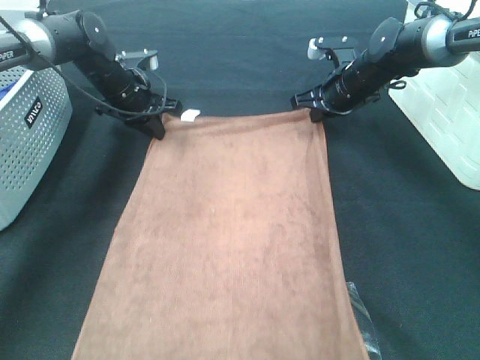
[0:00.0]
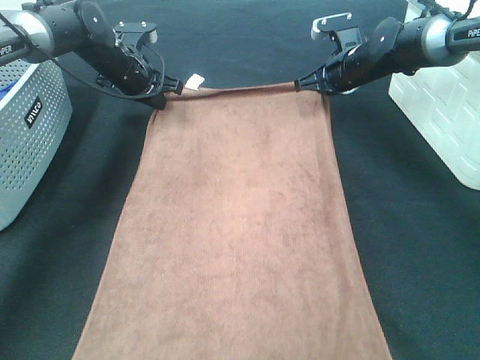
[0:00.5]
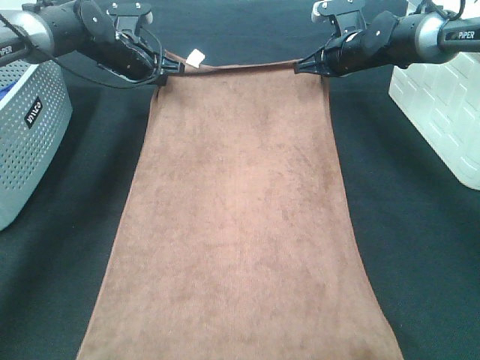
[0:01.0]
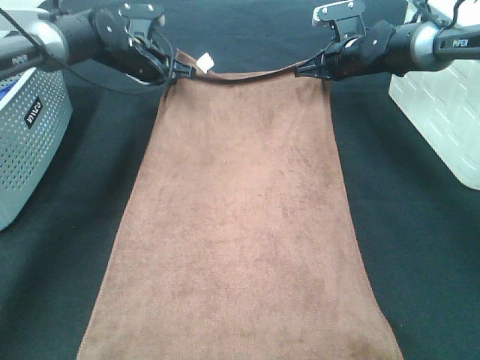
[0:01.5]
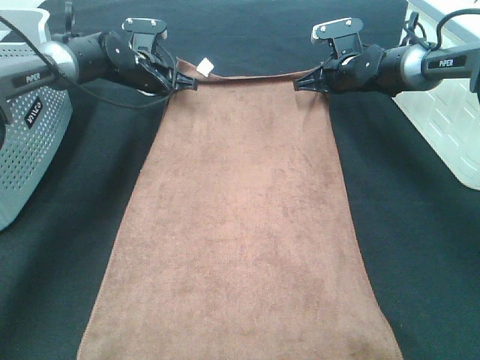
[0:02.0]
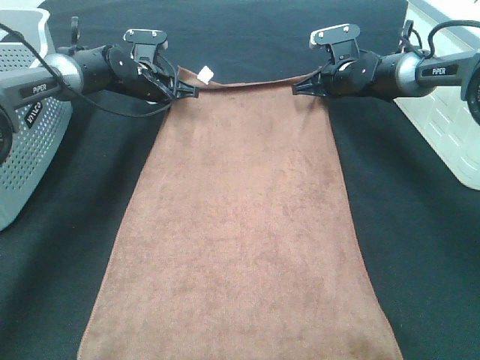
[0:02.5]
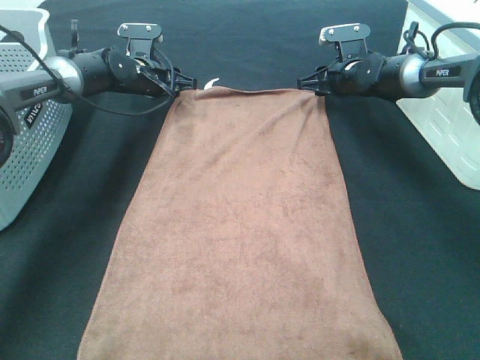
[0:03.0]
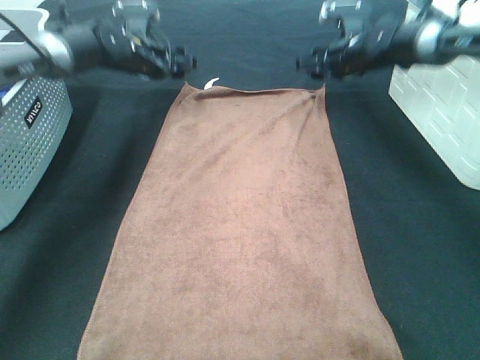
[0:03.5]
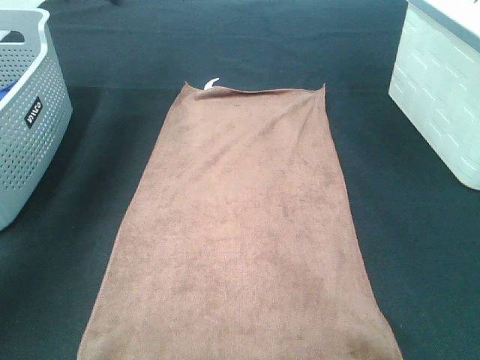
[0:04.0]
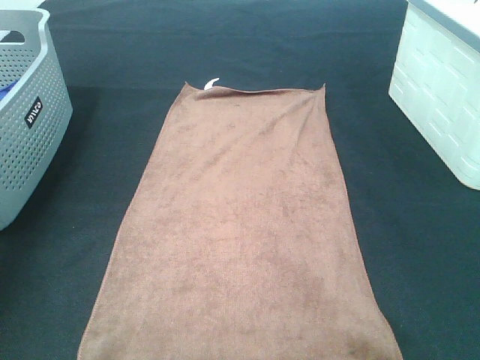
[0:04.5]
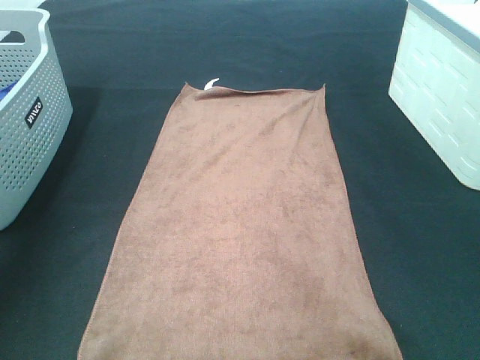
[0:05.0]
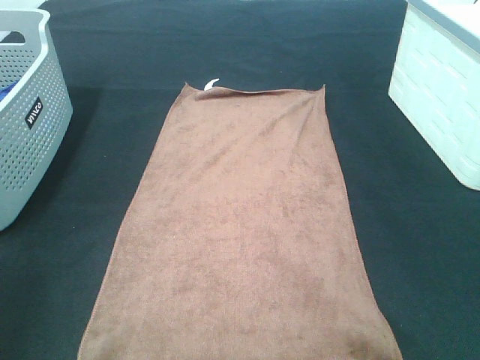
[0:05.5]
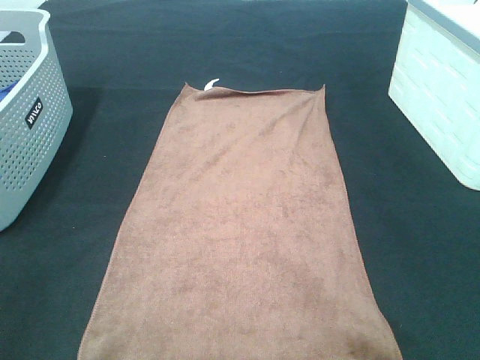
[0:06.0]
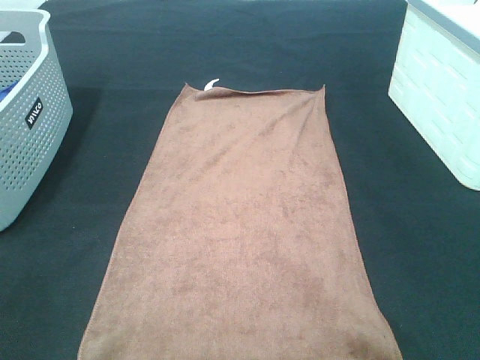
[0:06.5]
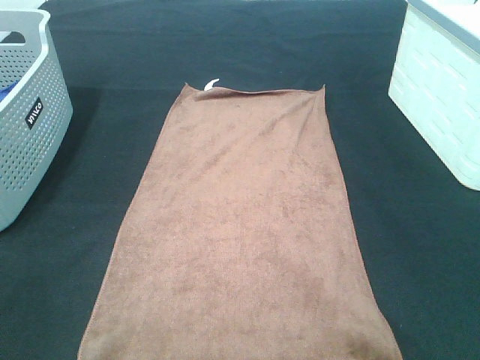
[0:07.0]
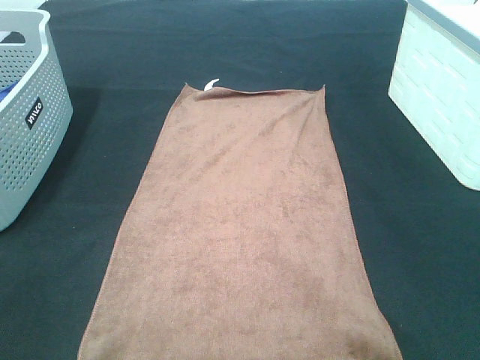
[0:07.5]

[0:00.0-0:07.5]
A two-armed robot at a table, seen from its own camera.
Task of the whole recording: Remove the towel and place it.
0:02.0 to 0:04.0: The right gripper travels upward and backward by some 30 cm, and opens its fingers. The left gripper goes about 25 cm upward, and opens its fingers.
0:04.0 to 0:05.5: Both grippers travel together backward, some 40 cm.

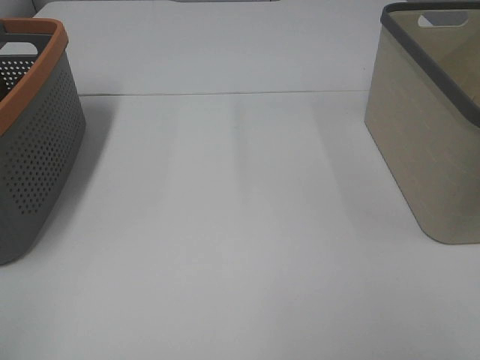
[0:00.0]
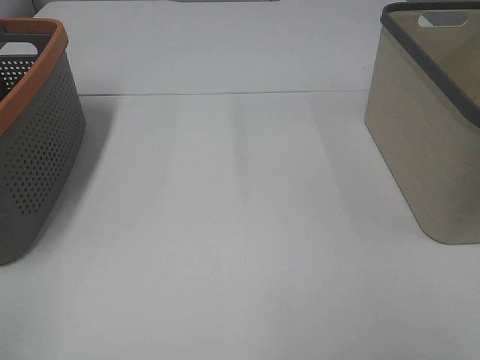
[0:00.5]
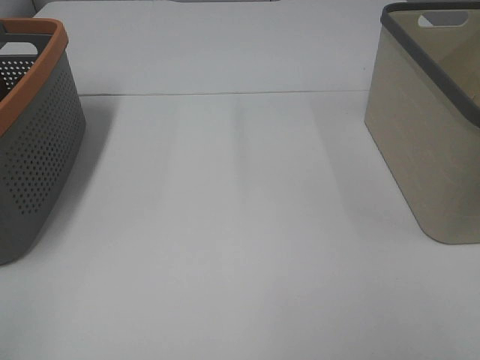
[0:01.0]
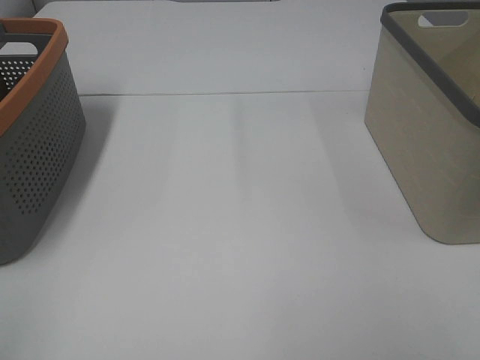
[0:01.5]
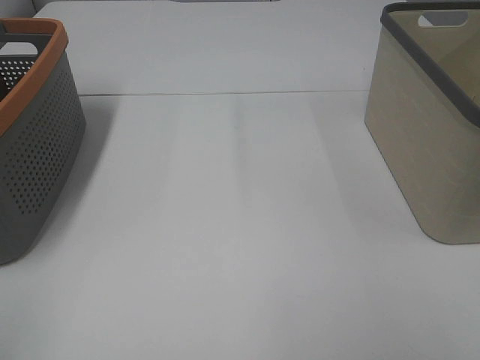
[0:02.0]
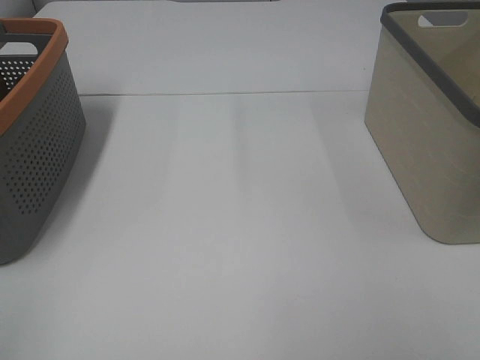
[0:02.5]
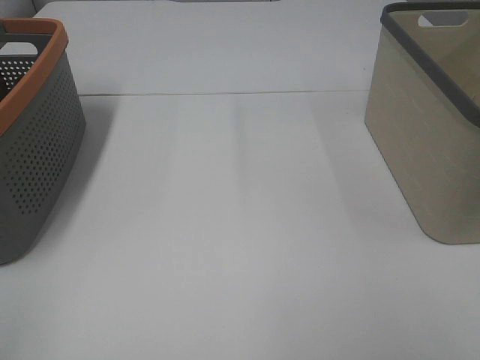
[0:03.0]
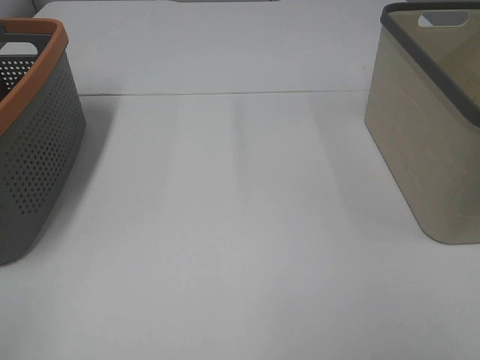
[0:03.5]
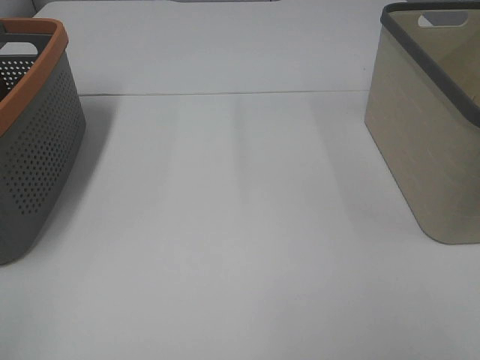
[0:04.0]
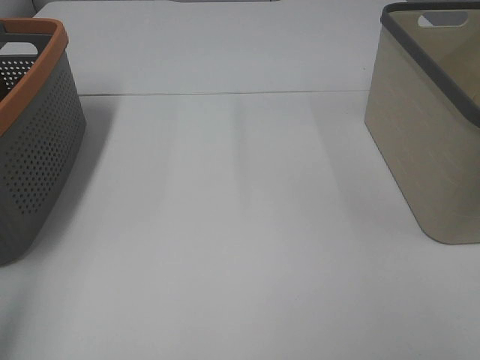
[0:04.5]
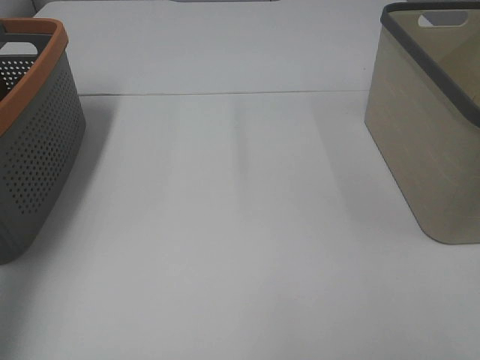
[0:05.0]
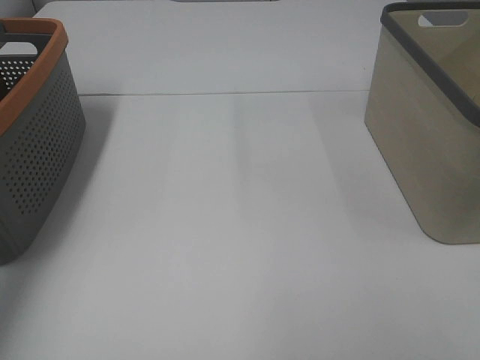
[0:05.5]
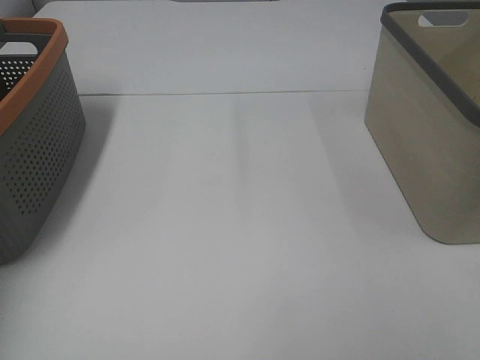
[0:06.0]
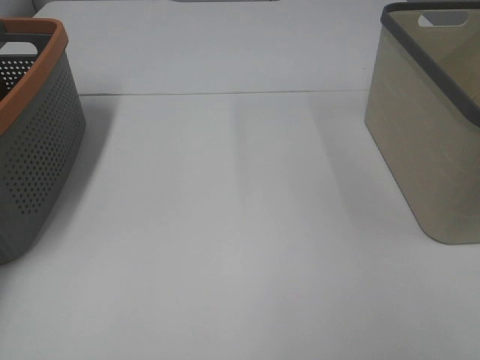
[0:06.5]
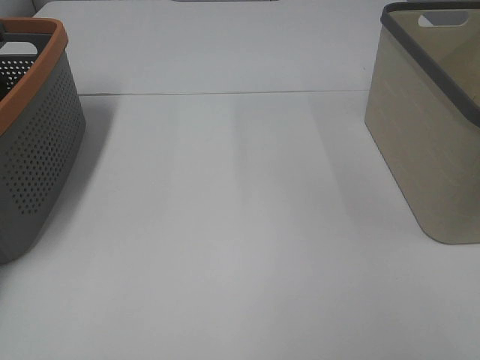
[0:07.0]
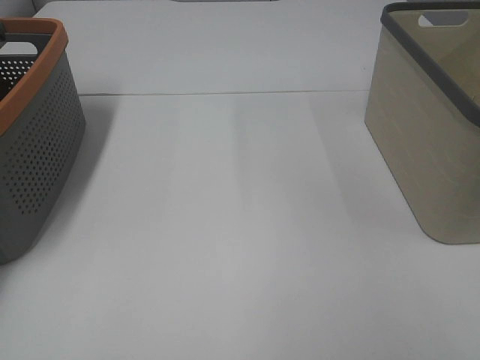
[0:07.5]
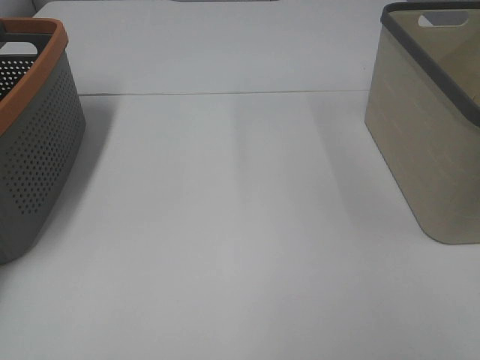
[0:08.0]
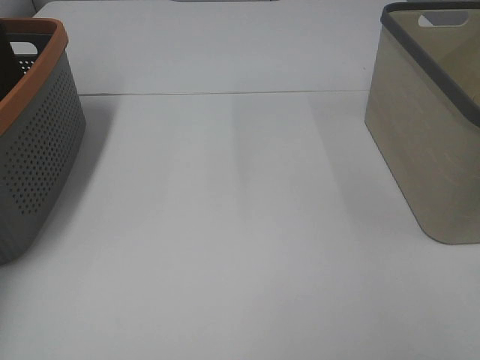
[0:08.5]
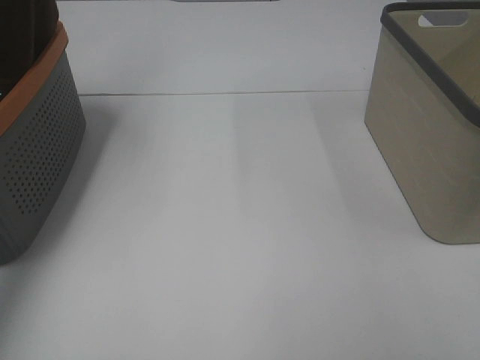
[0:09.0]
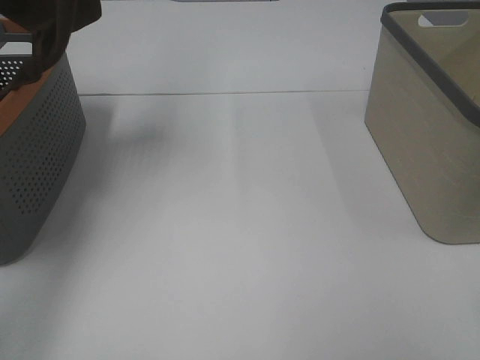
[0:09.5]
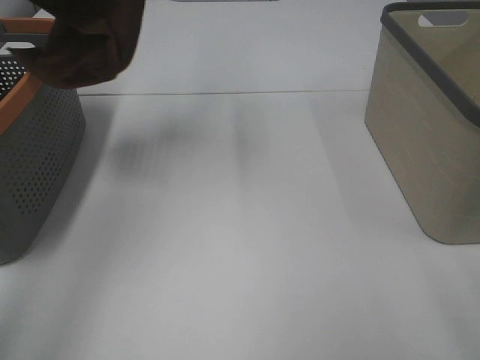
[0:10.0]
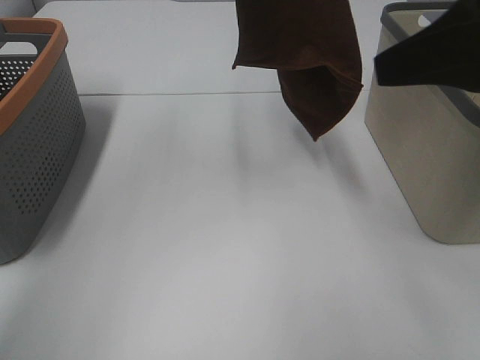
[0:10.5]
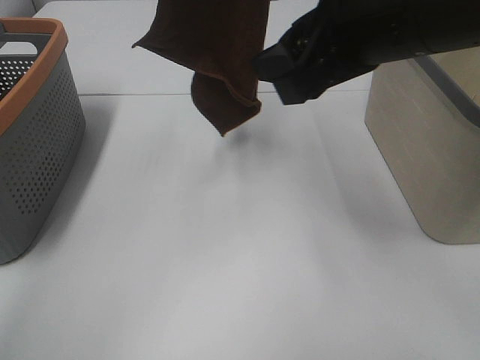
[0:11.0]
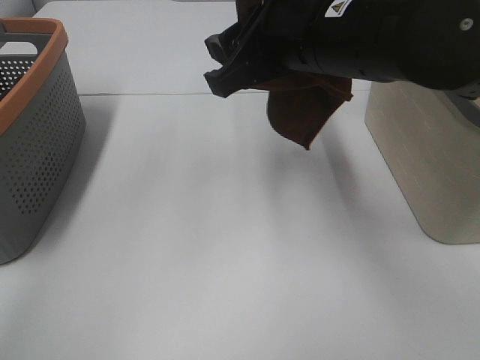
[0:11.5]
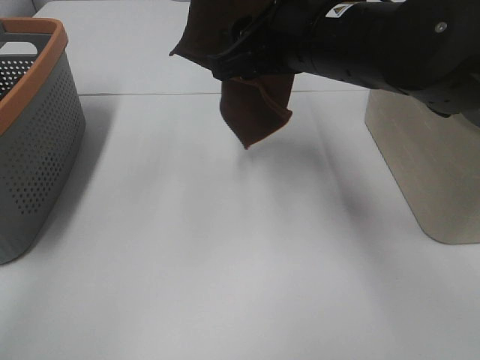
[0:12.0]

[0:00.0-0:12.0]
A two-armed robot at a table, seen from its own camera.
Task of the whole recording: Remove the towel and place it.
0:00.0 to 0:04.0: Both grippers stay put.
0:08.0 to 0:10.0: The left gripper heads to the right, upward and backward, covering approximately 35 cm. The right gripper is displaced forward by about 10 cm.
0:10.0 to 0:12.0: The right gripper is displaced forward and to the left by roughly 25 cm. The left gripper heads to the right, covering roughly 10 cm.

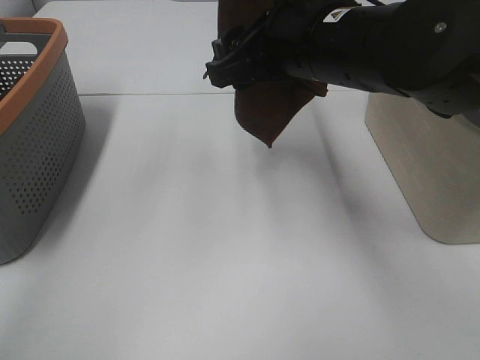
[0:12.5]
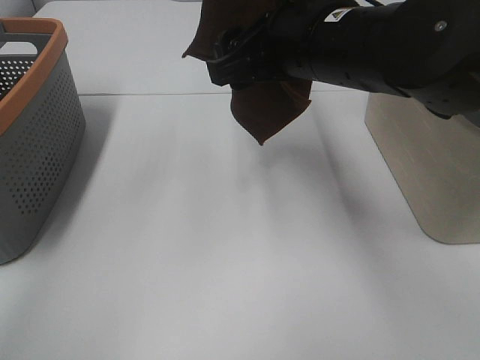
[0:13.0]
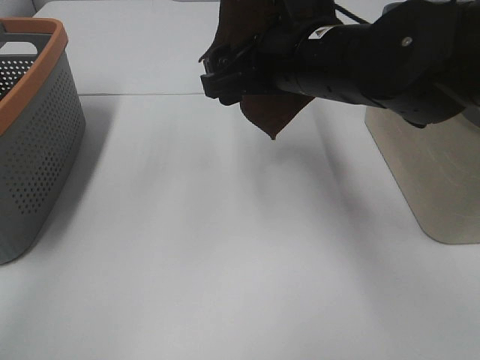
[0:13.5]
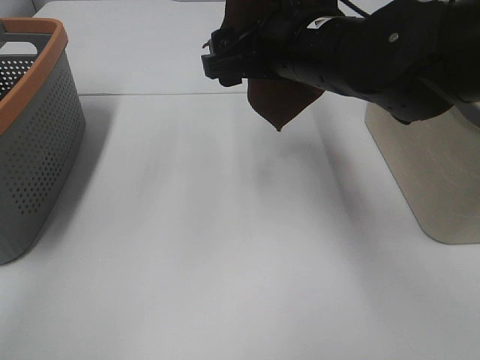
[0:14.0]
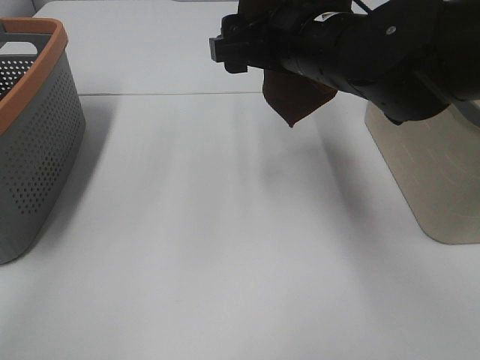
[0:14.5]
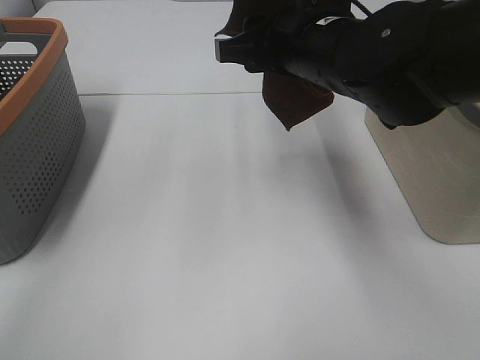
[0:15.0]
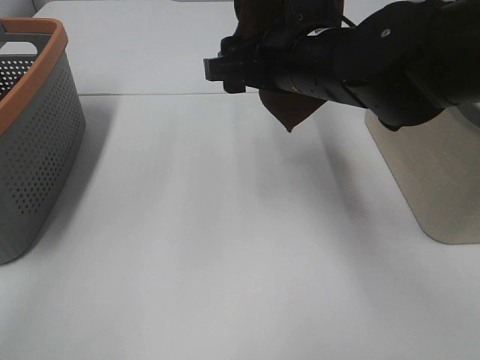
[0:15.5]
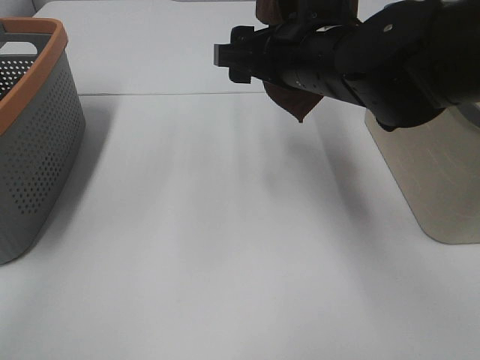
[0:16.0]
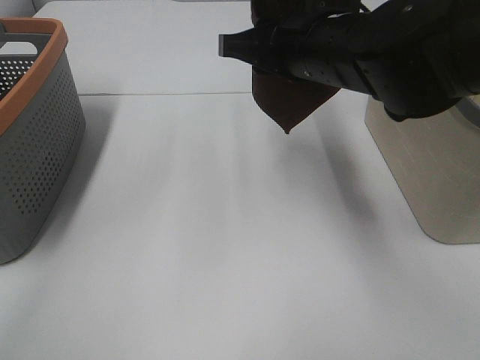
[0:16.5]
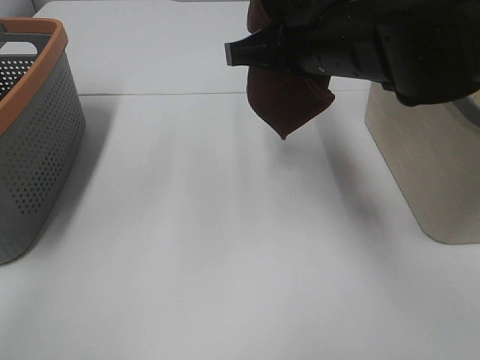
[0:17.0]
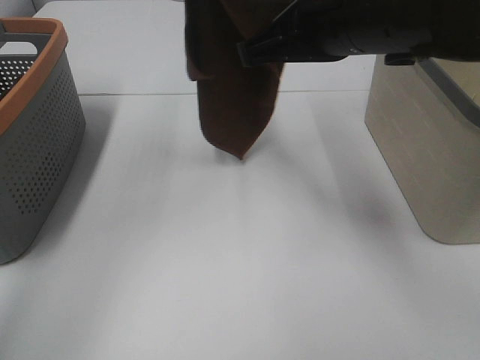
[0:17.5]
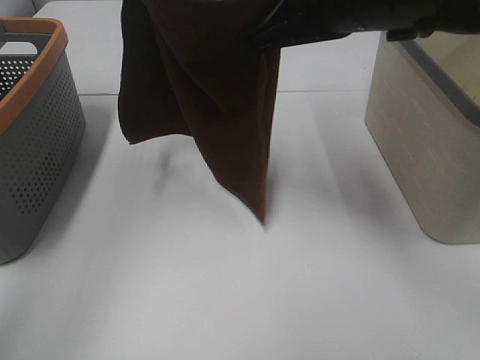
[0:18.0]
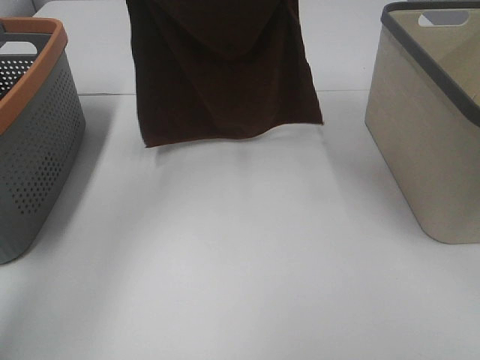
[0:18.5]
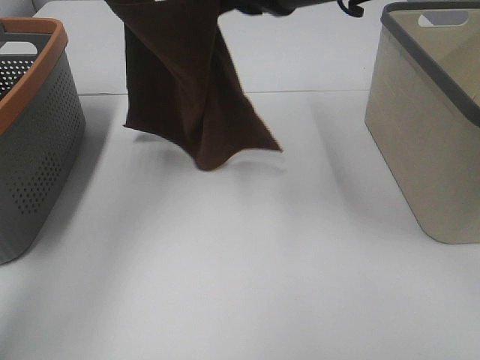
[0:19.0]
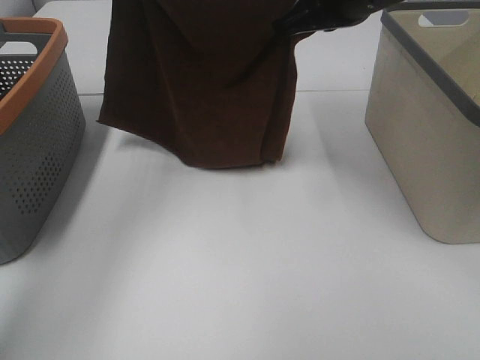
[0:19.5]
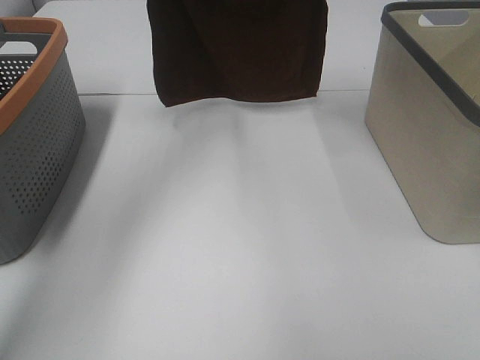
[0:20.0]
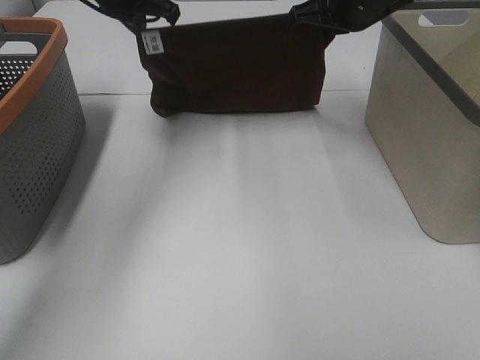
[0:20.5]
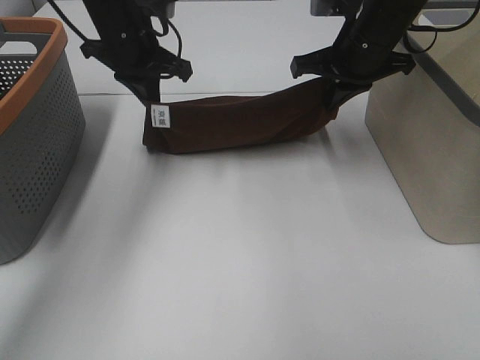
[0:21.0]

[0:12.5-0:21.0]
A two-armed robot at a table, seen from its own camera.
Task of the whole recording: Remove the towel and place it.
Step, 0:12.5 to 0:14.5: Right hand: grab a corner of the brown towel and straighten it.
Step, 0:15.0 to 0:17.5: Left hand: spread the brown towel flat on the table.
Step, 0:15.0 to 0:17.5: Right hand: spread the brown towel flat on the table.
0:12.5 to 0:14.5: The grippers move only a little.
0:14.5 to 0:16.5: The right gripper closes.
0:16.5 to 0:19.0: The right gripper goes about 5 cm upward, and closes its fingers. Meanwhile the left gripper is displaced downward, to the left and forward by about 20 cm.
0:19.0 to 0:21.0: The left gripper goes about 15 cm downward. The right gripper is displaced forward, downward and to the right by roughly 15 cm.
